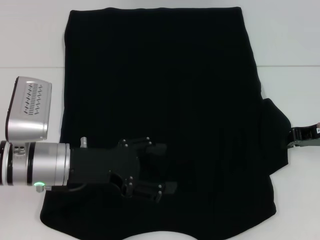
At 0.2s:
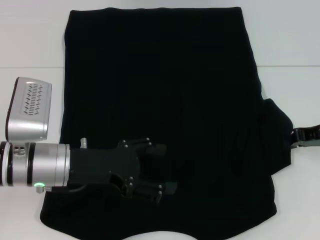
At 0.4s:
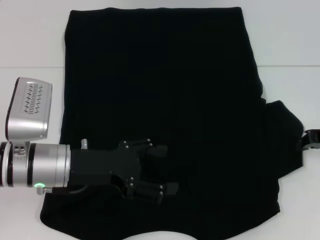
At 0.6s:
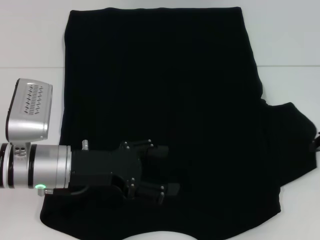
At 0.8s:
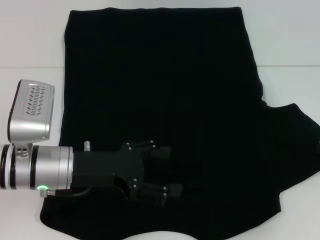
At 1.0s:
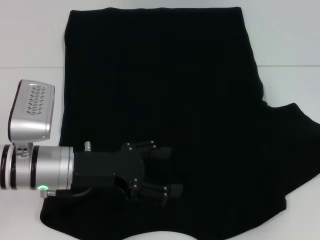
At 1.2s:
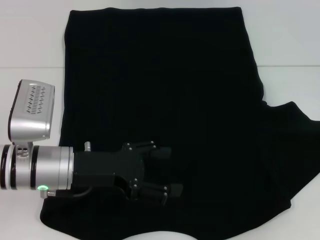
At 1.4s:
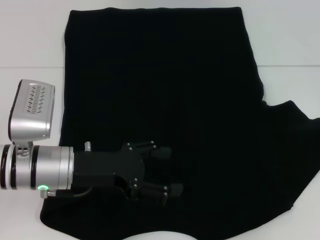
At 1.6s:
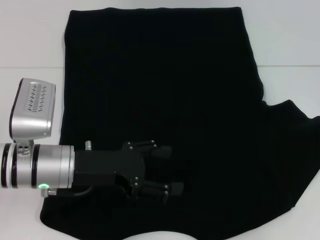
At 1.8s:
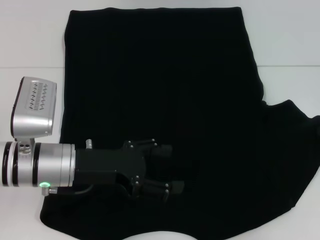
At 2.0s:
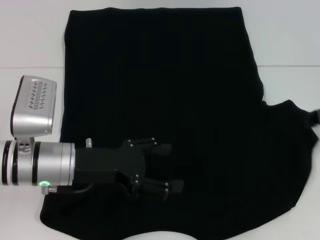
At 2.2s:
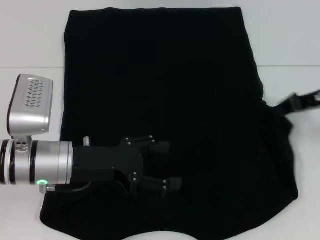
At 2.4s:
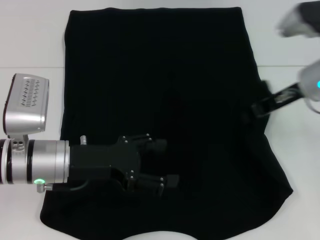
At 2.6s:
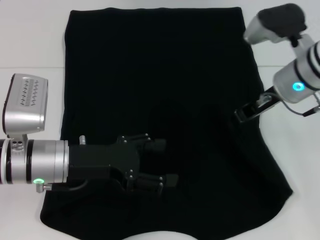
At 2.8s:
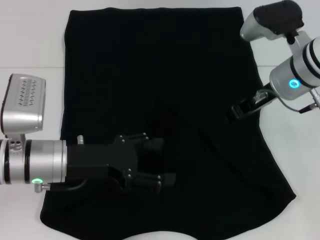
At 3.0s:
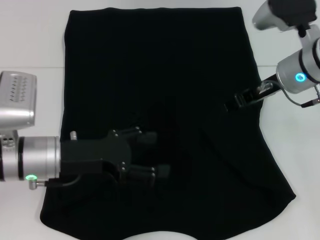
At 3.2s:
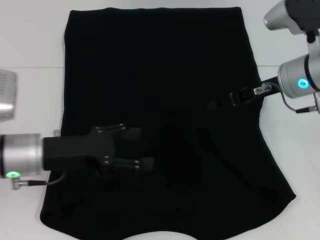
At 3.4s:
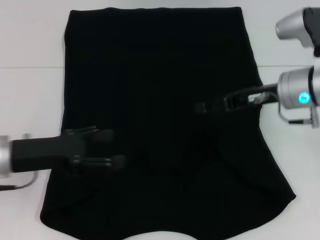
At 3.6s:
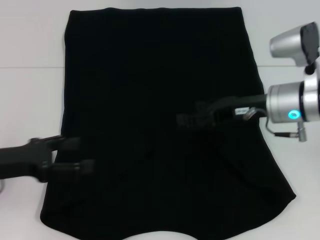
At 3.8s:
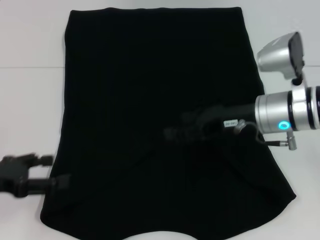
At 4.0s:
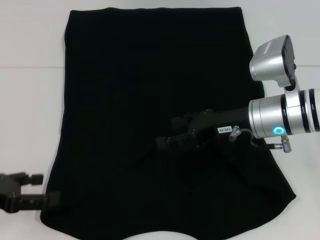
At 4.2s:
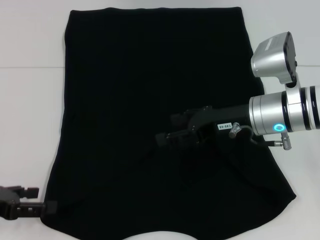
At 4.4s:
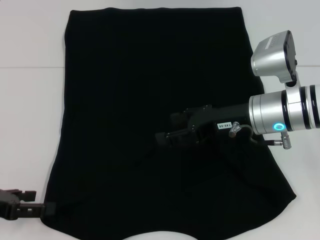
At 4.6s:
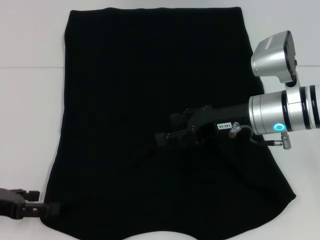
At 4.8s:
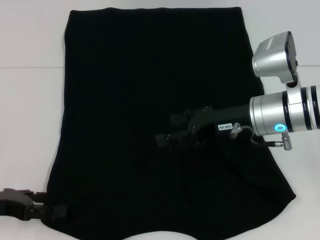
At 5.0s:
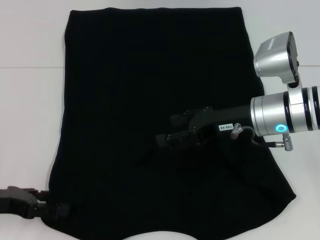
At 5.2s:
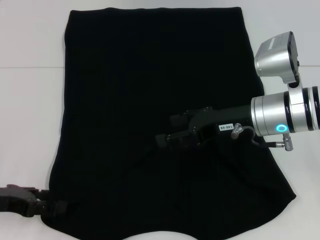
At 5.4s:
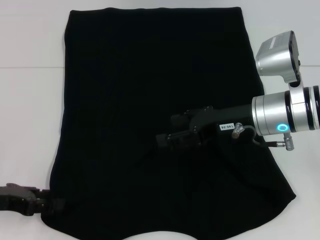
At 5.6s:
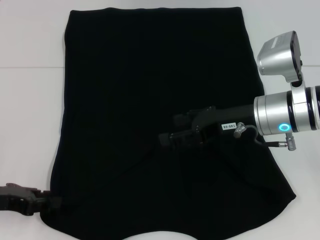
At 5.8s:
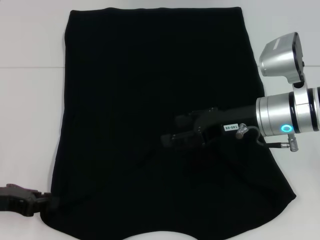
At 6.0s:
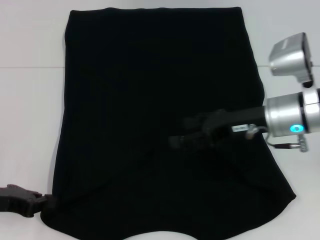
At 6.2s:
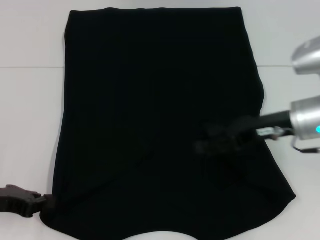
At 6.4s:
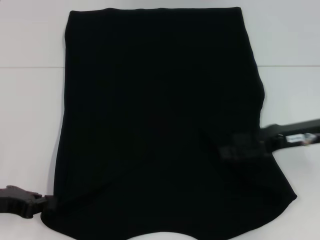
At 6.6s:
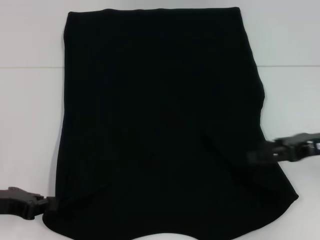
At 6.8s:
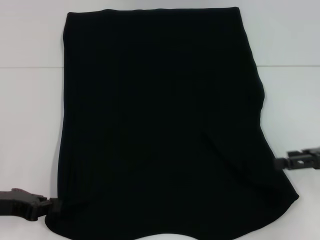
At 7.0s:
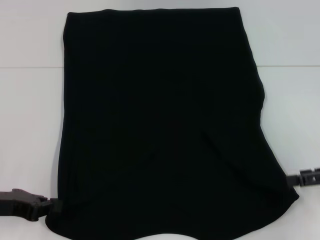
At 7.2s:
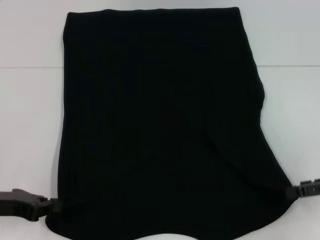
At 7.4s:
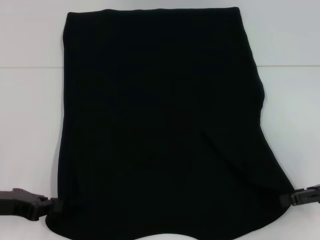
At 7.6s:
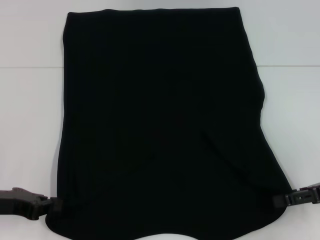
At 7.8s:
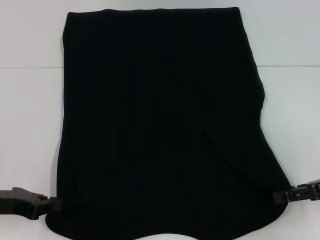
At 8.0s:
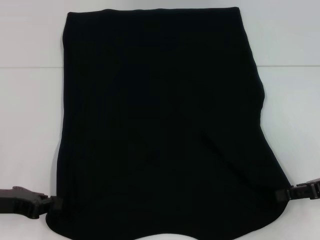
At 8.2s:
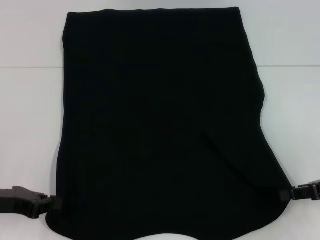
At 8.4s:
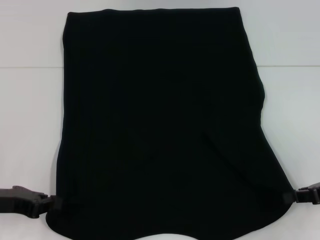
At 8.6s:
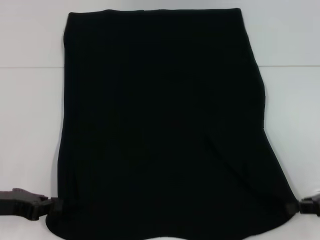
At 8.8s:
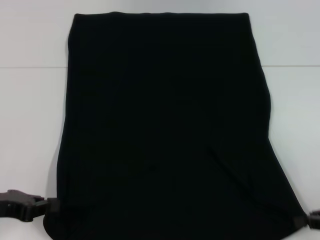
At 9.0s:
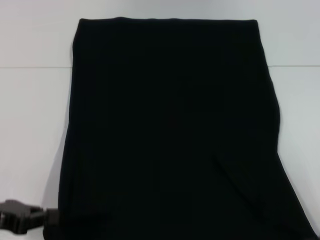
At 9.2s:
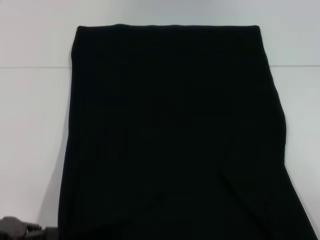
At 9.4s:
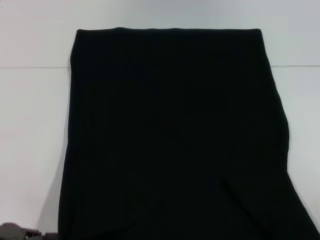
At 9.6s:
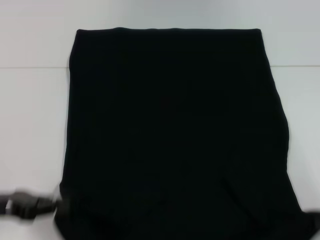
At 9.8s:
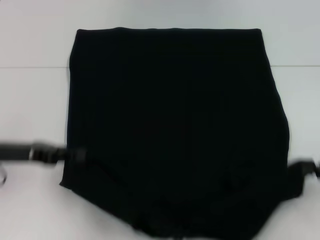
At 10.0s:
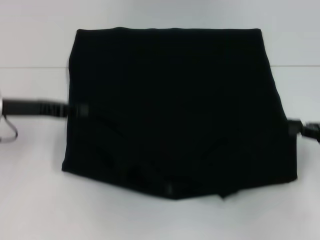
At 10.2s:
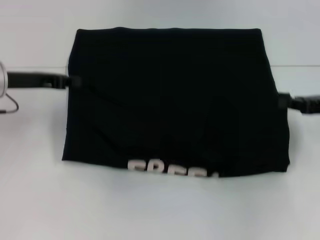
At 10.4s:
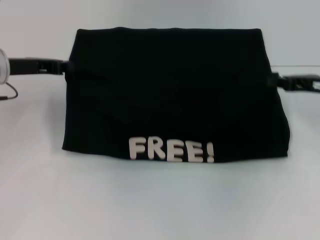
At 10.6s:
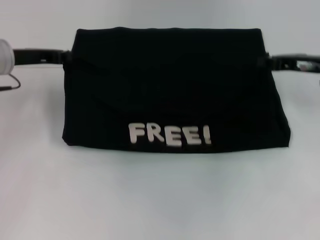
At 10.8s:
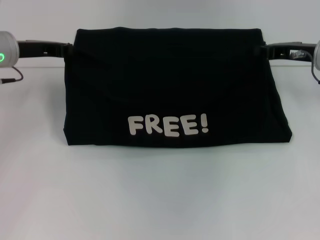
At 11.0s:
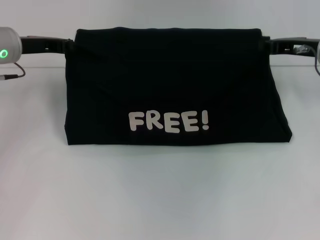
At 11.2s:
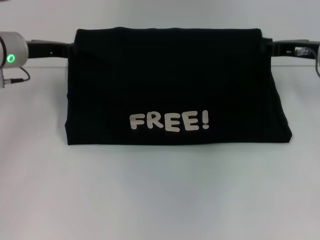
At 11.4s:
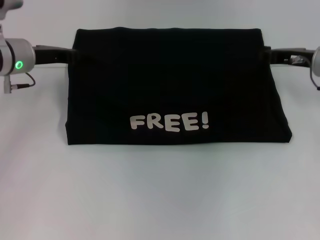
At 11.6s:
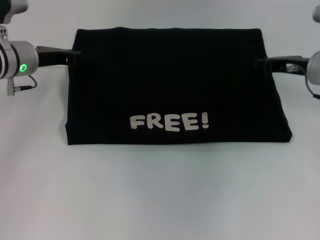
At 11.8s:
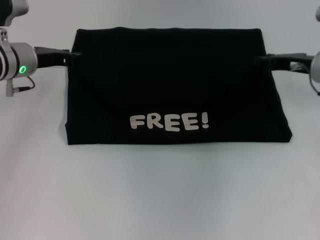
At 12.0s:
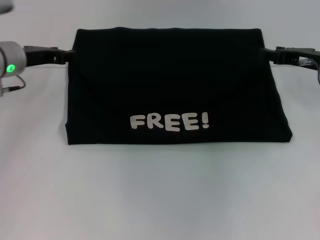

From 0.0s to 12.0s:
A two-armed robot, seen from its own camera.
Step, from 0.0s to 3.2s: Fold the bottom right sleeve with your right hand.
Step, from 3.4s to 8.2s: Grab the bottom left corner with your left hand.
Step, from 3.4s to 8.2s: Grab the bottom right corner with your right hand.
From 0.0s to 1.6s: The right gripper shifts approximately 5 cm to the right.
From 1.6s to 3.0s: The right gripper moves to the left, approximately 15 cm, and opens up.
From 3.0s to 4.4s: The left gripper goes some 15 cm to the left and backward, while the right gripper heads backward, covering roughly 5 cm, and opens its fingers.
From 4.4s to 6.0s: The left gripper closes.
From 6.0s to 7.6s: The right gripper shifts roughly 15 cm to the right and backward.
From 7.6s to 9.0s: The right gripper travels backward by roughly 10 cm, and closes its fingers.
From 9.0s to 10.4s: The two grippers go some 20 cm forward.
From 10.4s to 12.0s: The left gripper opens up.

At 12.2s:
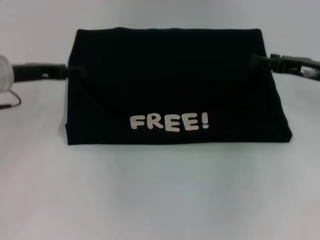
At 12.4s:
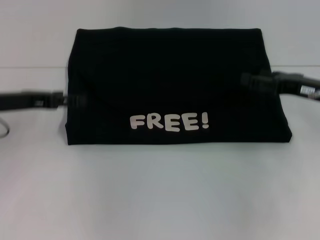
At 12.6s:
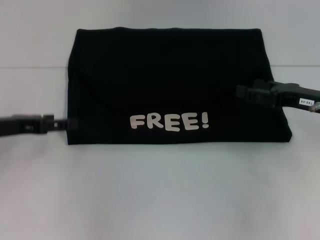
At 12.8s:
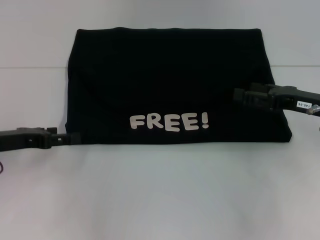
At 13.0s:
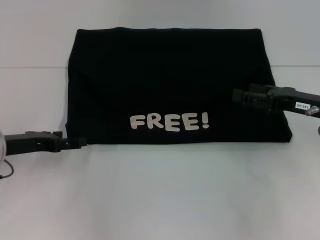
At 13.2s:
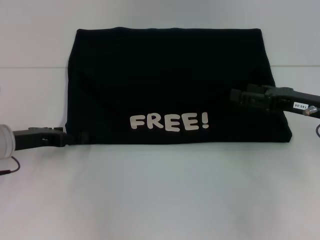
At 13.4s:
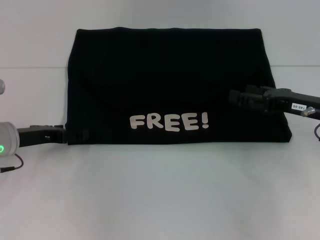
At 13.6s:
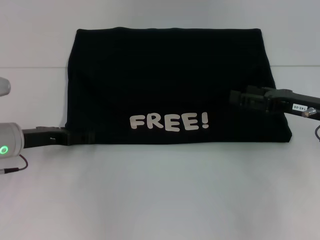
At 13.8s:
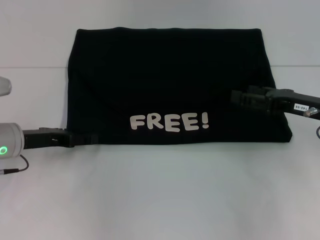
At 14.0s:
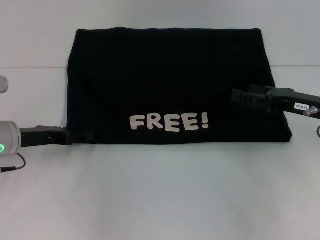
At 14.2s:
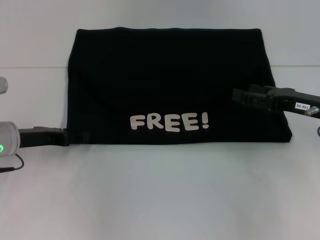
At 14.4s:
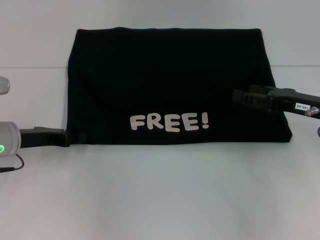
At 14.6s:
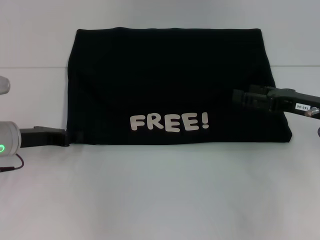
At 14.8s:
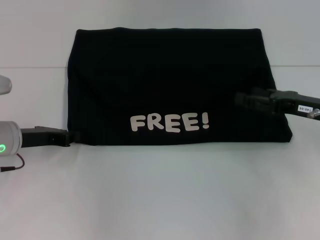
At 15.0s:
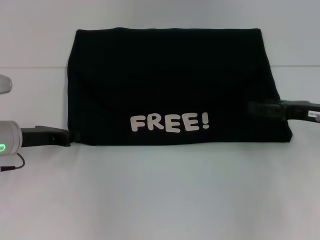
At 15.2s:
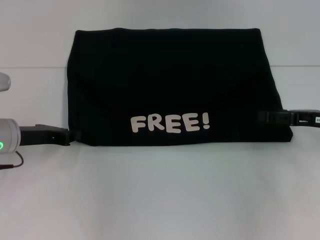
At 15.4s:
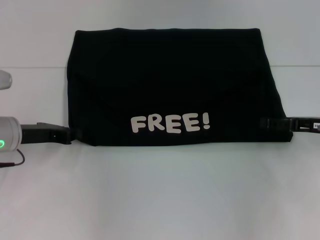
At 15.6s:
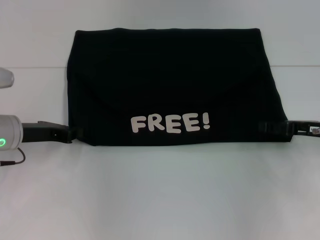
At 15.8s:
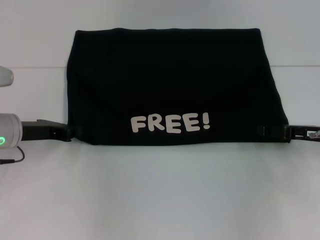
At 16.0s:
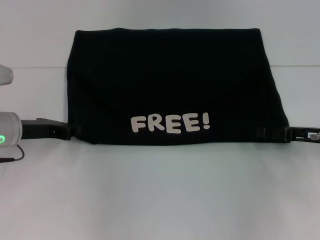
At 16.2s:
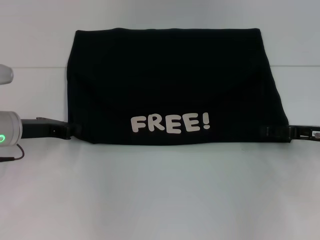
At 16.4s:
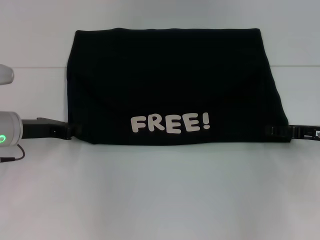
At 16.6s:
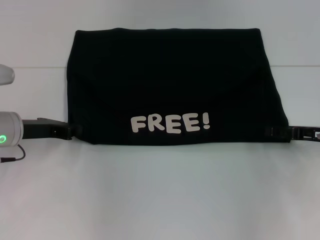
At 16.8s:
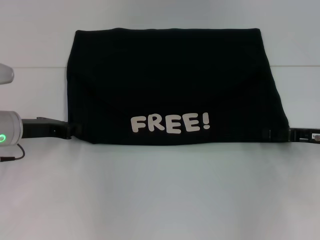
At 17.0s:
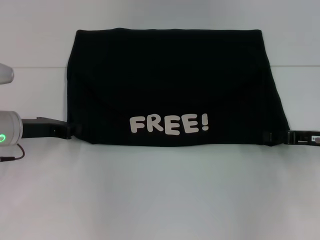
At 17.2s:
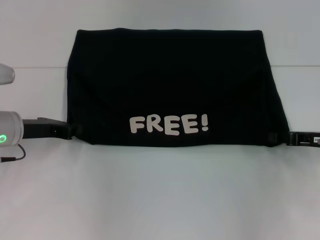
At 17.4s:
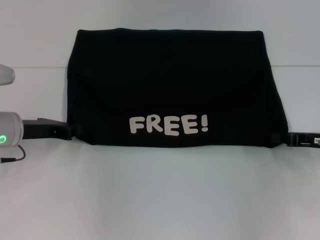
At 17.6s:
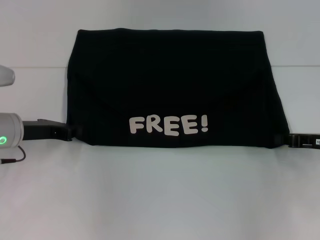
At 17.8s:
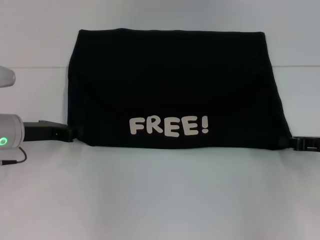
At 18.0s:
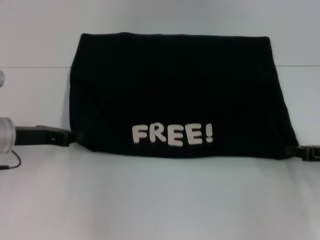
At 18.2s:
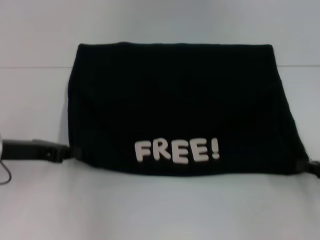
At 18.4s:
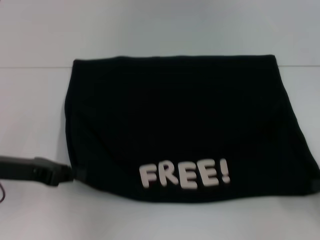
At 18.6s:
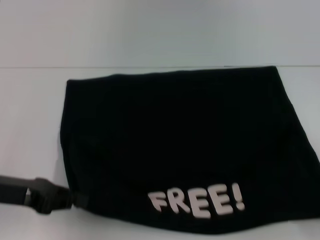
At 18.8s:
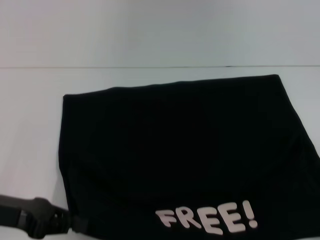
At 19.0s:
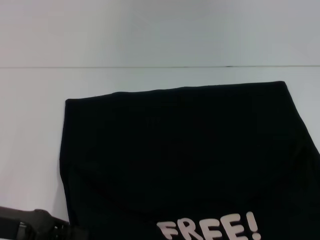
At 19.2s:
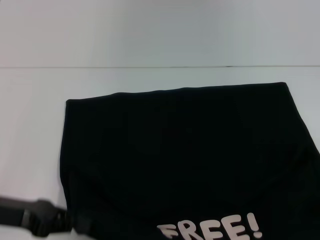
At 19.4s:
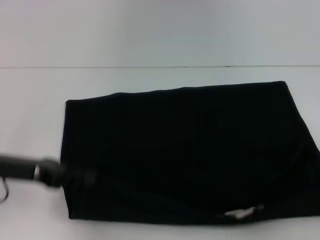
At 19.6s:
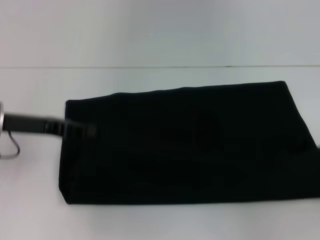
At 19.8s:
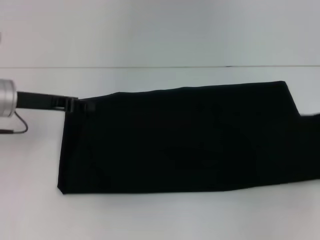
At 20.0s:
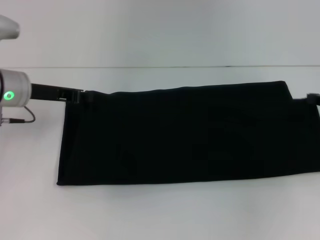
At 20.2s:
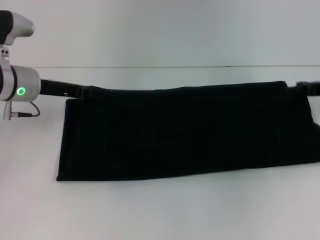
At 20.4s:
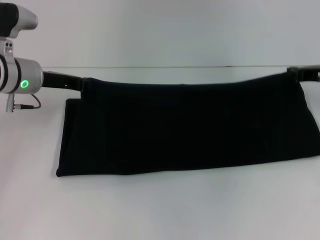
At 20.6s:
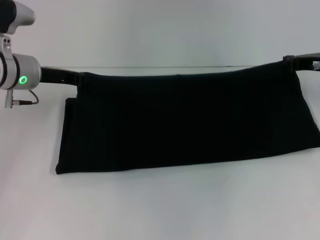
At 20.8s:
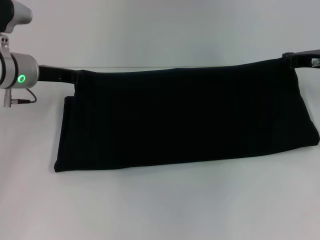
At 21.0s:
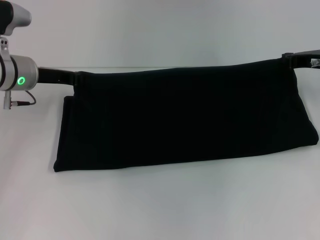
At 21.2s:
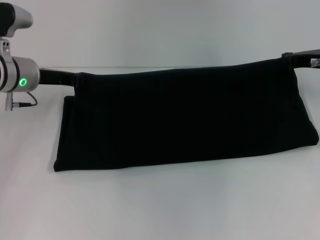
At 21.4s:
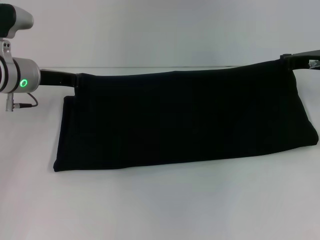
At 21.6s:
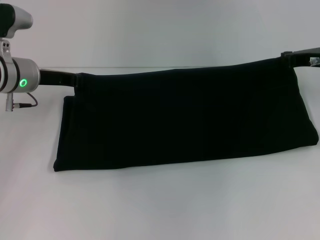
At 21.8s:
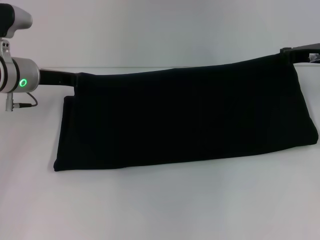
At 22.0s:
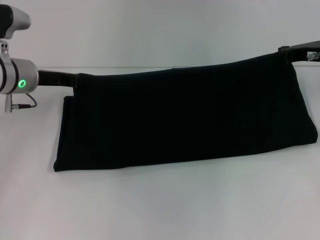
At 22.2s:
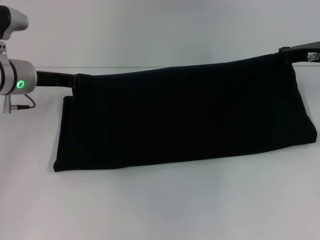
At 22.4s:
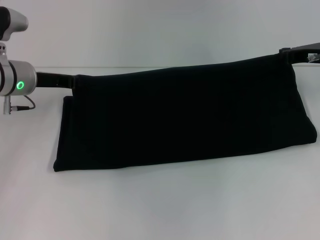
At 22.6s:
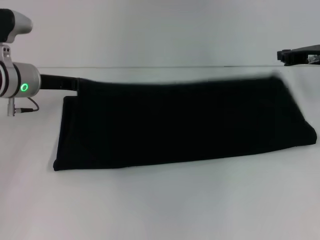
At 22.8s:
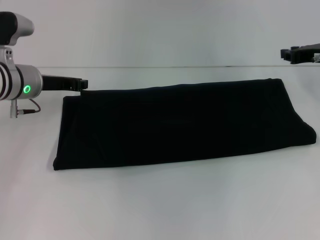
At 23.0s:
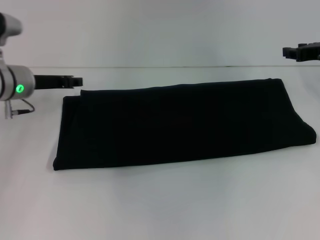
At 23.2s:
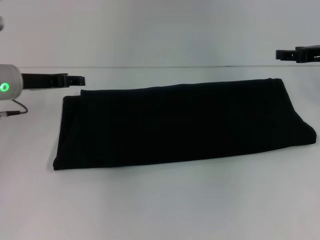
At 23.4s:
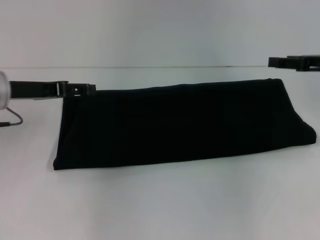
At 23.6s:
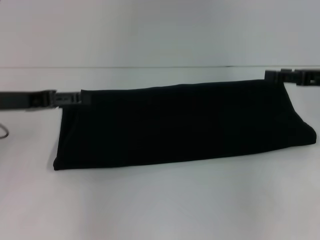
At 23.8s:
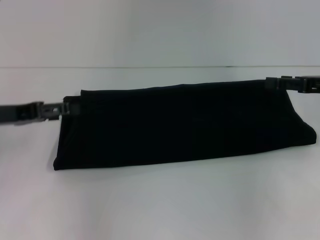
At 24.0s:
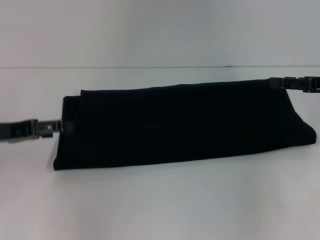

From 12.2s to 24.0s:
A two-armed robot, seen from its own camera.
Step, from 12.4s to 19.0s: Pull the clothes with your left hand.
Step, from 12.4s to 19.0s: Pull the clothes with your right hand.
Step, from 19.2s to 23.0s: Fold the clothes with your right hand.
From 12.2s to 13.6s: The left gripper travels downward and backward by about 10 cm, and opens its fingers. The right gripper is displaced backward by about 5 cm.
From 13.6s to 15.2s: The left gripper closes its fingers.
From 15.2s to 16.6s: The grippers move only a little.
From 16.6s to 18.2s: The right gripper heads backward, covering some 5 cm, and closes its fingers.
From 18.2s to 19.6s: The right gripper is displaced to the right and upward by approximately 10 cm, and goes backward and returns, about 10 cm each way. The left gripper reaches about 10 cm backward, then returns.
From 19.6s to 21.0s: The left gripper goes approximately 10 cm forward. The right gripper goes some 20 cm forward and to the left.
From 21.0s to 22.6s: The grippers move only a little.
From 22.6s to 24.0s: The left gripper moves backward and to the left, approximately 15 cm, and opens its fingers. Meanwhile the right gripper shifts roughly 10 cm backward, and opens.
